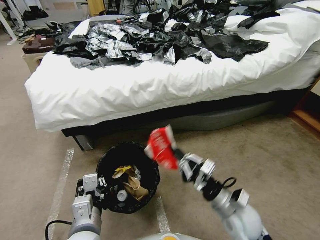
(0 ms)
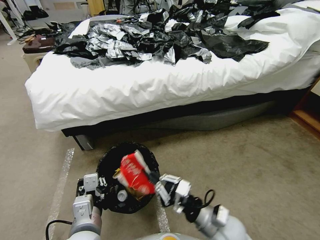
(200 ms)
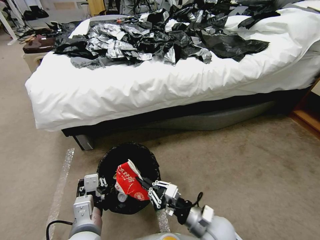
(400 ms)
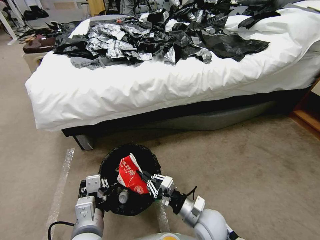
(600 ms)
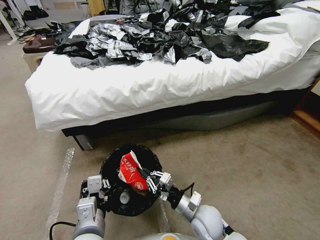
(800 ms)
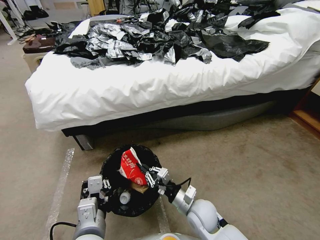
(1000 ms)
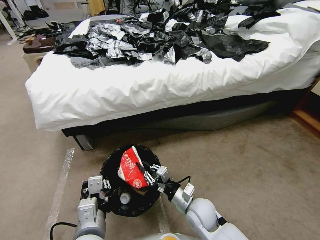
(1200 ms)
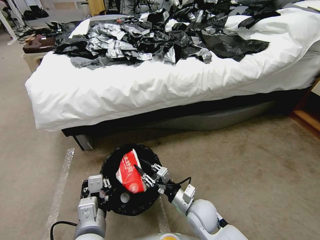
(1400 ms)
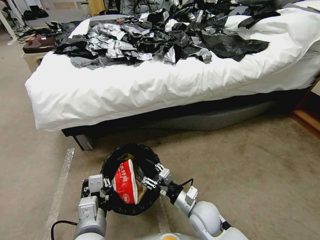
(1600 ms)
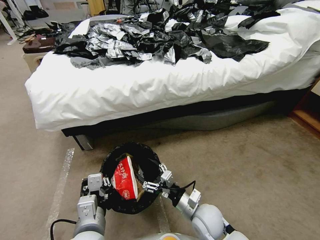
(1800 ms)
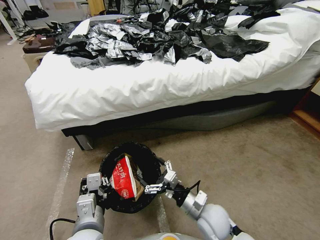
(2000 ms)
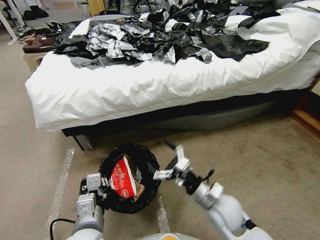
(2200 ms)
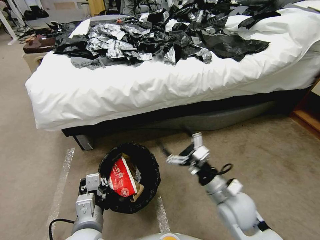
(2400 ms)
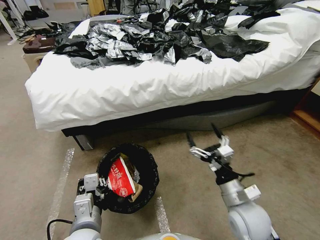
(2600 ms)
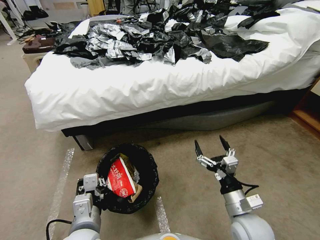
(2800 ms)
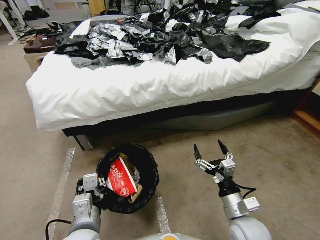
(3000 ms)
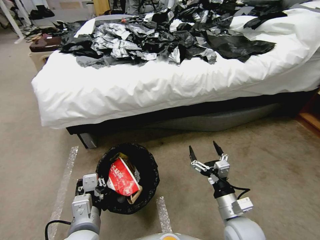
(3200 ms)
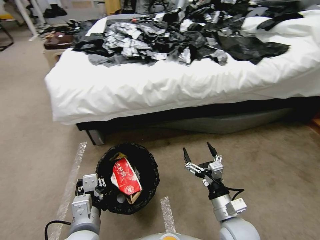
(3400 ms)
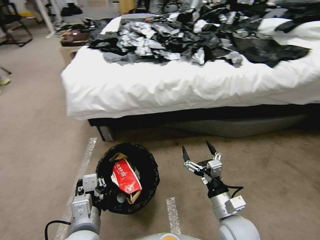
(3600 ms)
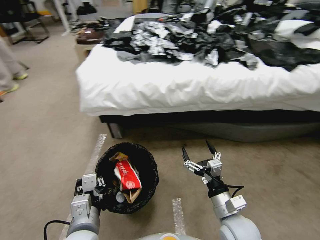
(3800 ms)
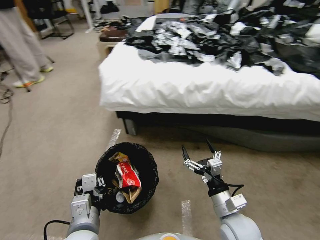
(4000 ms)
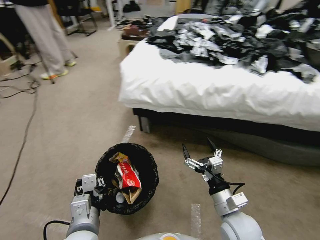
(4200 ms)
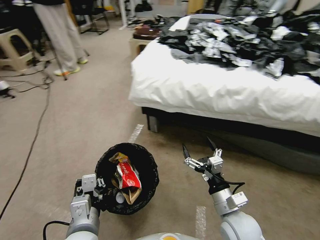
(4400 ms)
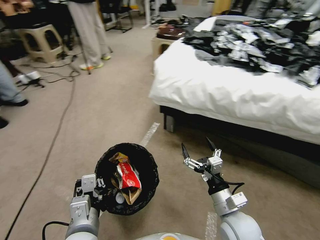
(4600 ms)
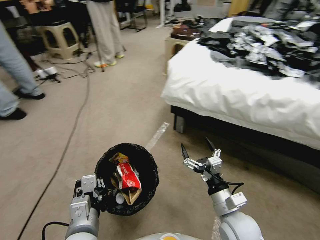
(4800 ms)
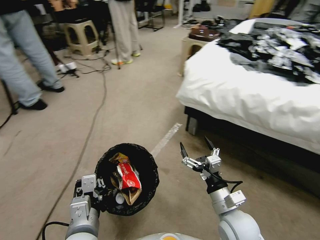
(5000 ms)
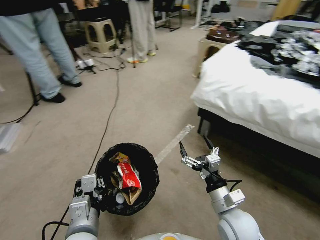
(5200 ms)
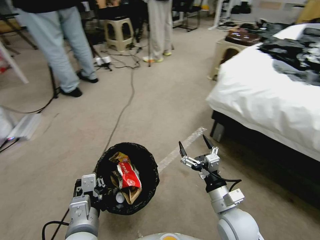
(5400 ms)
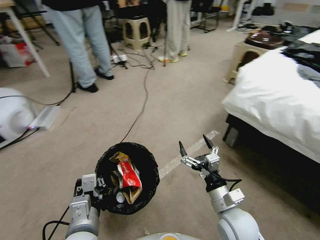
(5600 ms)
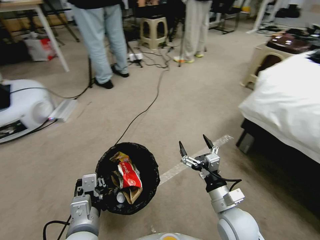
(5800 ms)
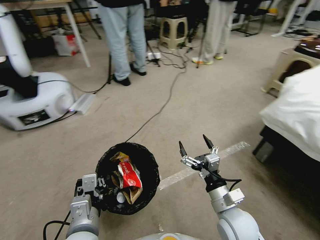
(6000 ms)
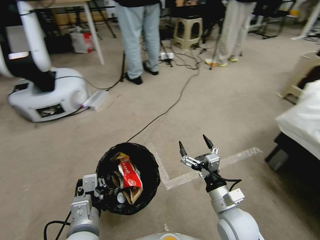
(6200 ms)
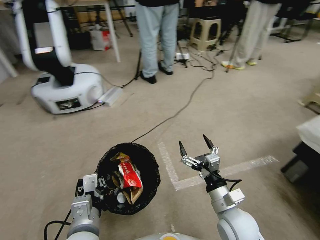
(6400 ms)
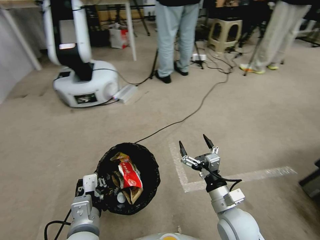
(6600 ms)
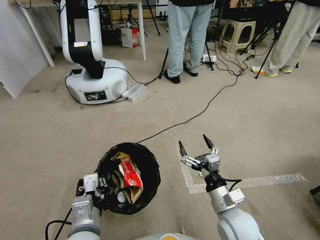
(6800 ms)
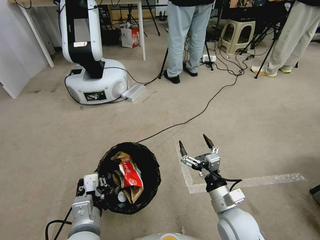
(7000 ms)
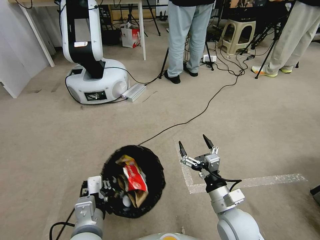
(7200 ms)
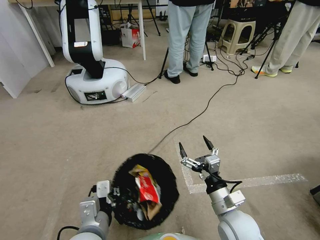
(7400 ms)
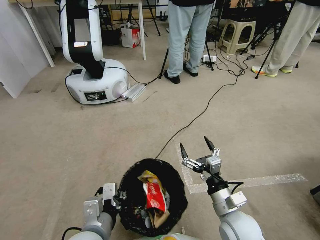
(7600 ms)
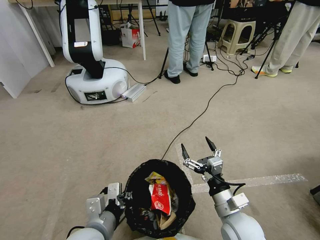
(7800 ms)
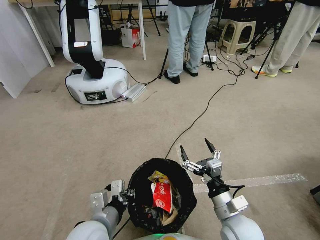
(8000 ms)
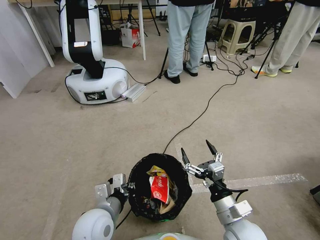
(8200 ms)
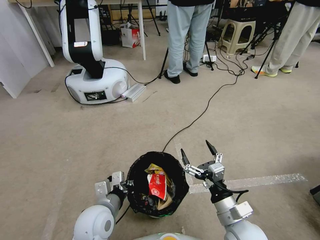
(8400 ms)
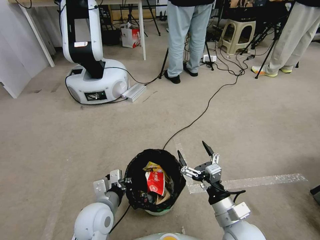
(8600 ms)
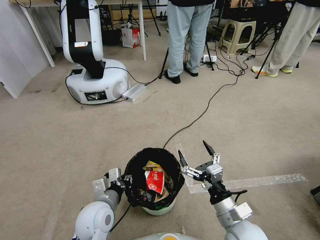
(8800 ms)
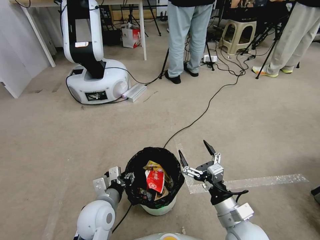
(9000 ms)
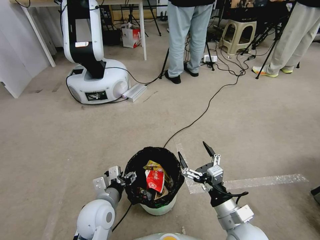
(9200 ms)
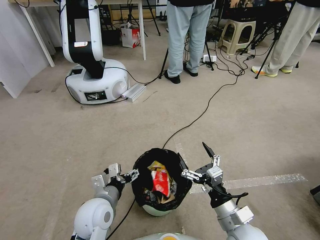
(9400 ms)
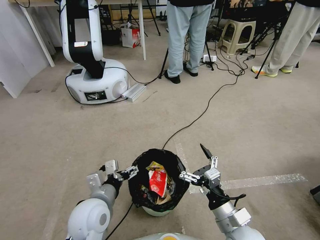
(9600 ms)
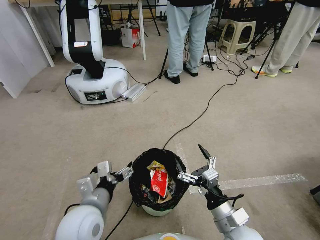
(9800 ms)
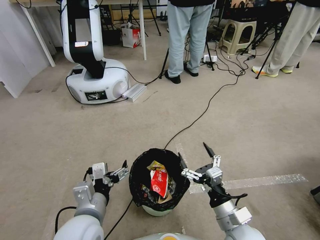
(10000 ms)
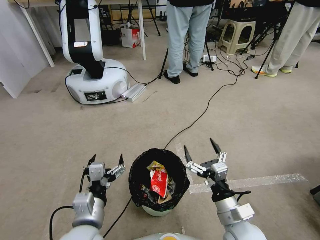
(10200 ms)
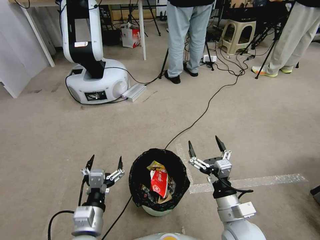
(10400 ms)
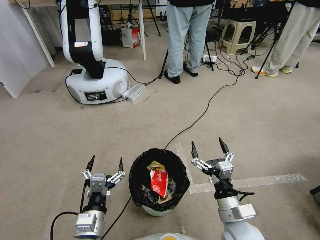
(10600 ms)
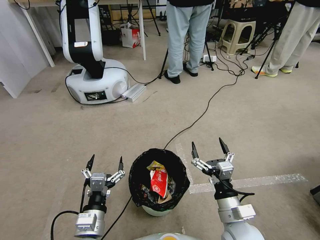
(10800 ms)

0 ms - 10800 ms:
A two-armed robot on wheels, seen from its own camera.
Task of the whole recording: Pick up the trash bin, then pick up the garbage from the floor and place it into the trash bin.
0 ms - 1600 ms: The right gripper shifts about 10 cm to the left and downward, and opens.
1600 ms - 3000 ms: The right gripper goes approximately 15 cm to the right, upward and backward, and opens its fingers.
7800 ms - 9200 ms: The left gripper moves forward and downward, roughly 10 cm, and opens.
9200 ms - 10800 ms: The left gripper travels backward by some 10 cm.

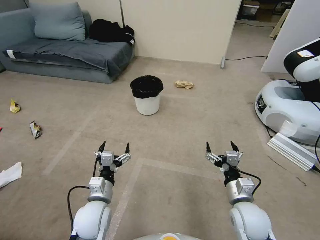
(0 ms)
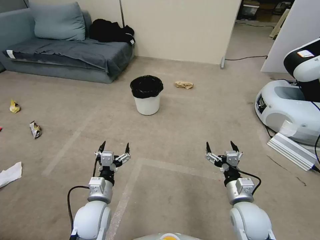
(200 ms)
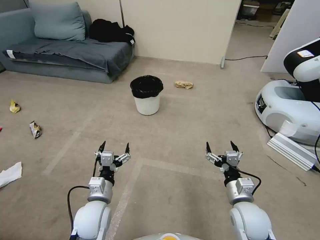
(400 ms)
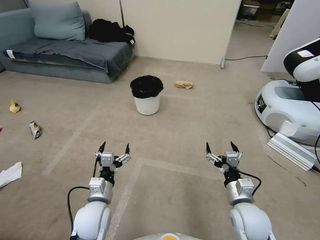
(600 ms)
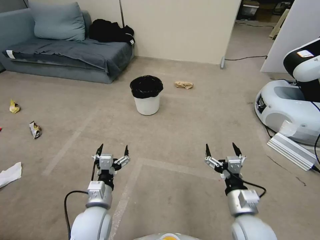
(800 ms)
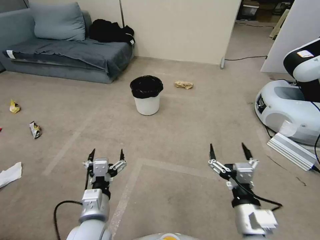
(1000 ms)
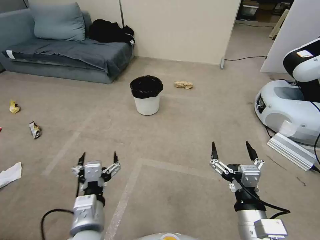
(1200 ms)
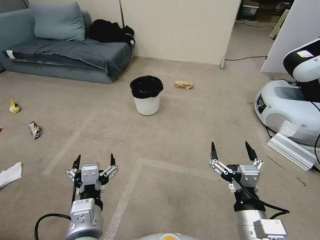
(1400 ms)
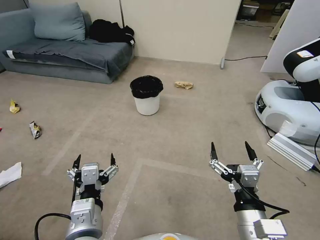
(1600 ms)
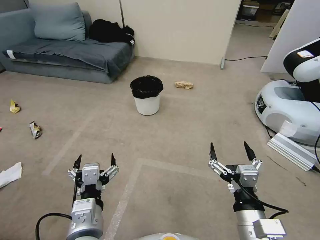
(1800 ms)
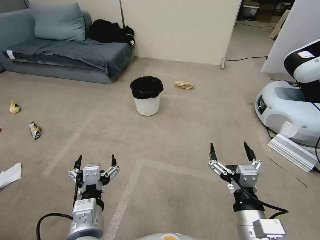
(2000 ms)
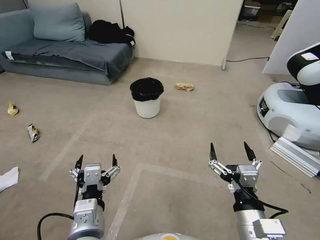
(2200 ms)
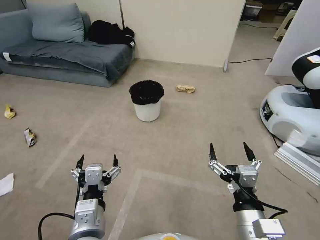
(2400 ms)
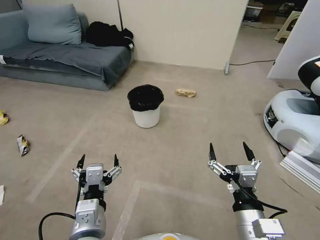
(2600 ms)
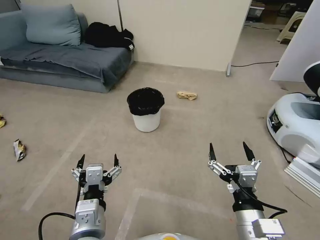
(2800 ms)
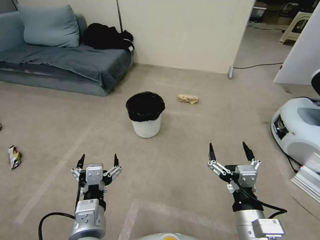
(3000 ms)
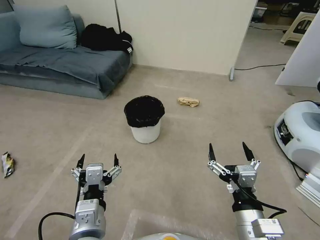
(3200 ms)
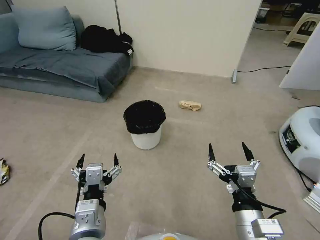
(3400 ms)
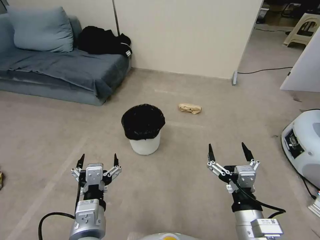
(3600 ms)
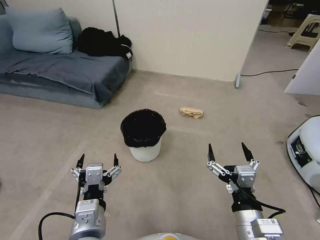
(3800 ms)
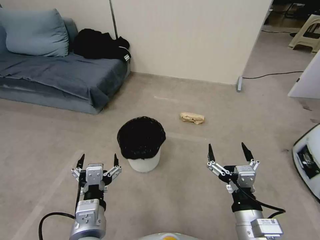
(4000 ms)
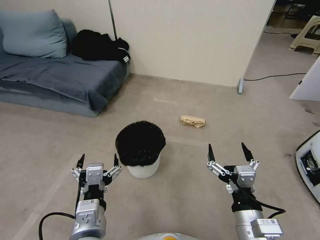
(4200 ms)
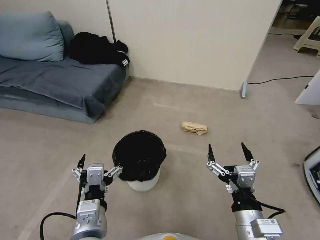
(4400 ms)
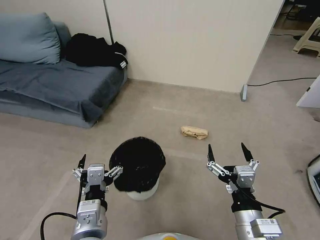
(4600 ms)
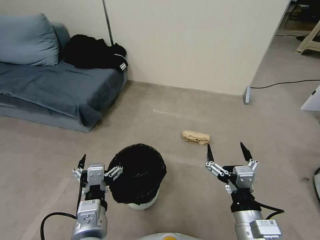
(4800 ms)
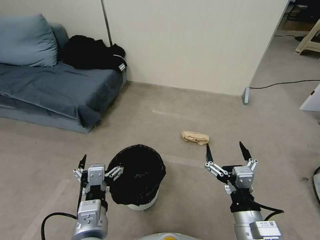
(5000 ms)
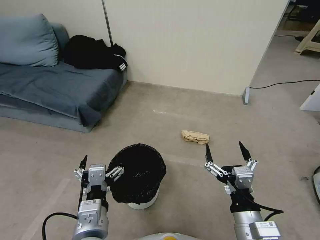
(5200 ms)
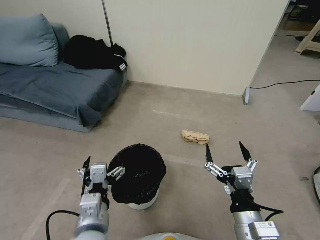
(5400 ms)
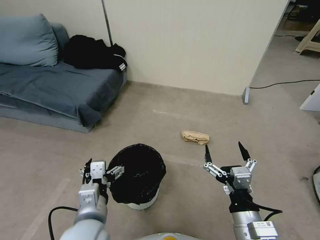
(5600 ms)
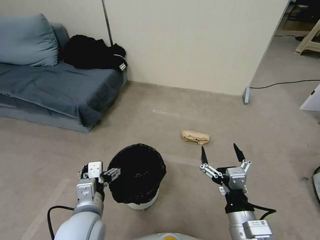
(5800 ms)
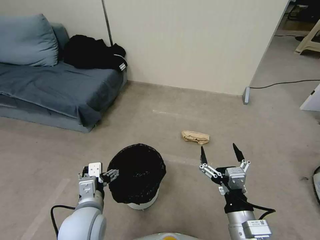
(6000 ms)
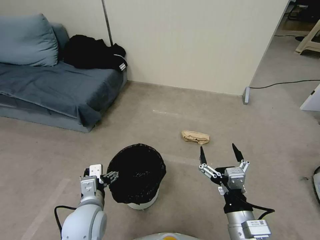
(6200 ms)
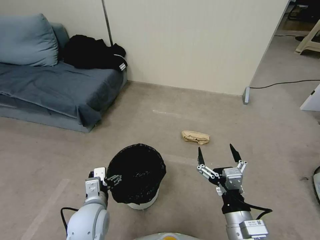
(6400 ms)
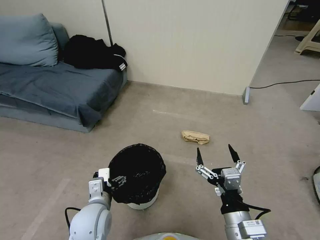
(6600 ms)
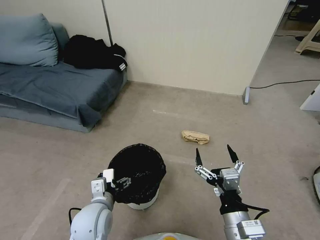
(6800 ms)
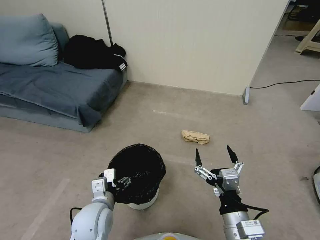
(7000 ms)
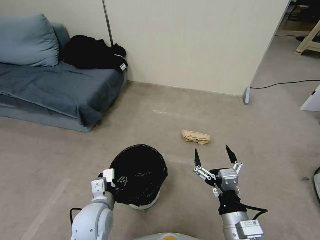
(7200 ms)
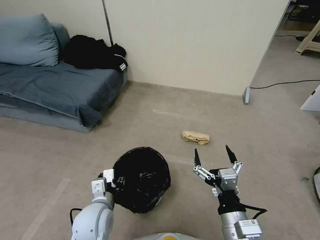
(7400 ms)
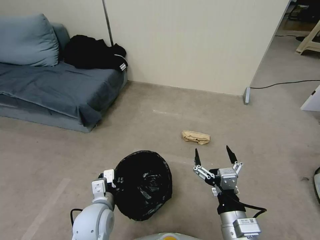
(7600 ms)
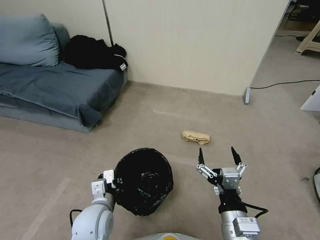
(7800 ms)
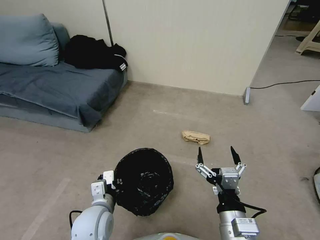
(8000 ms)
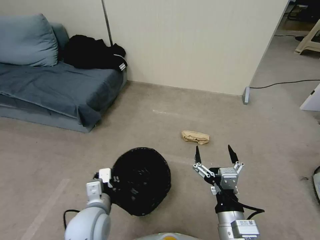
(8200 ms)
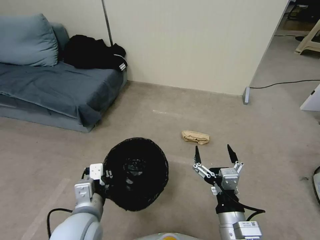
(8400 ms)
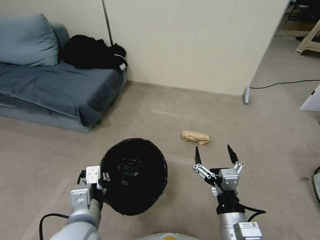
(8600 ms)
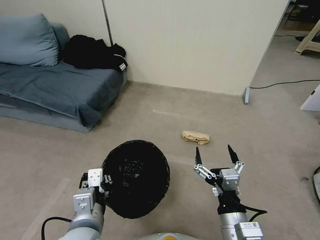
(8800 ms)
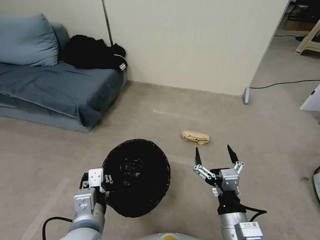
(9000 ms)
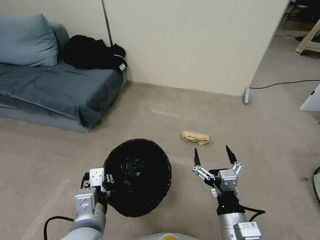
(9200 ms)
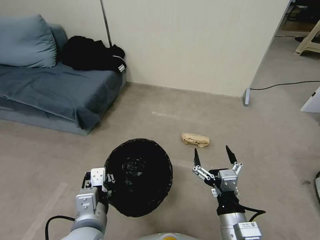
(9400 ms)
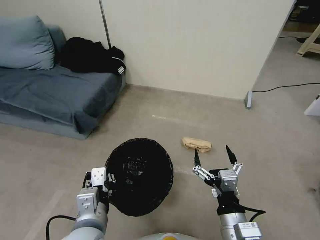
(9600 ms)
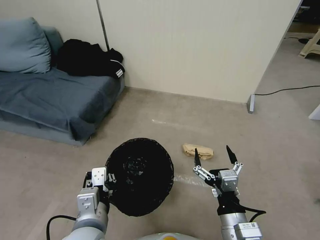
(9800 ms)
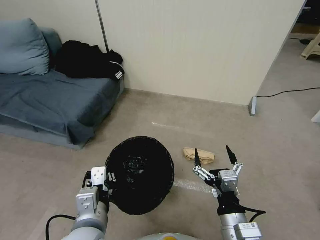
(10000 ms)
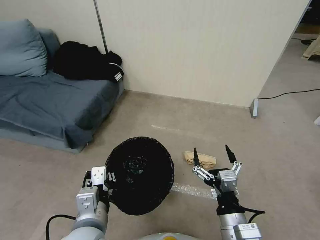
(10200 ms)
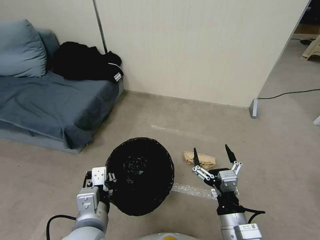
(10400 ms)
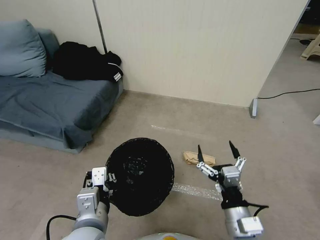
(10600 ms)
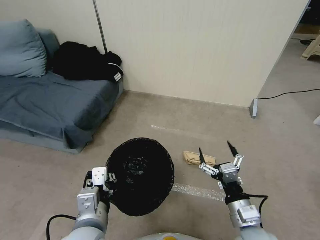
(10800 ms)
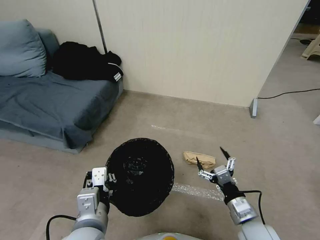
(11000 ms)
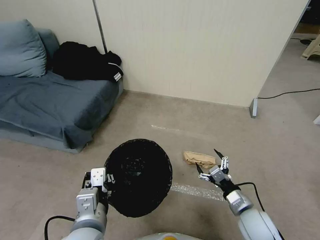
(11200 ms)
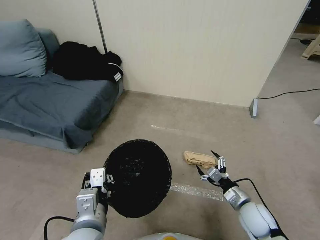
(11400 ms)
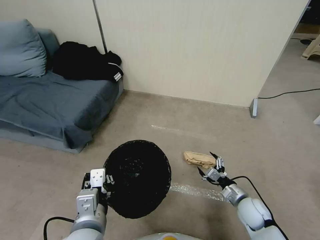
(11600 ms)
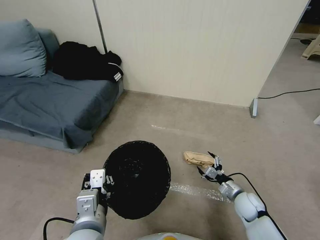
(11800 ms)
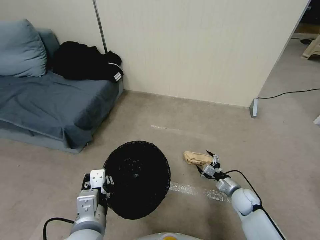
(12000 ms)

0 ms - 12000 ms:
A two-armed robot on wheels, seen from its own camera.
Task of the whole recording: Pick up the trash bin, then pick up the garbage from the floor and place it into the trash bin.
4400 ms - 6000 ms: The left gripper moves forward, some 5 cm.
6000 ms - 7600 ms: The left gripper travels downward by roughly 5 cm, and closes.
7600 ms - 9000 ms: The left gripper is displaced upward and backward by roughly 15 cm.
10400 ms - 12000 ms: The right gripper moves downward, forward and to the right, some 35 cm.
